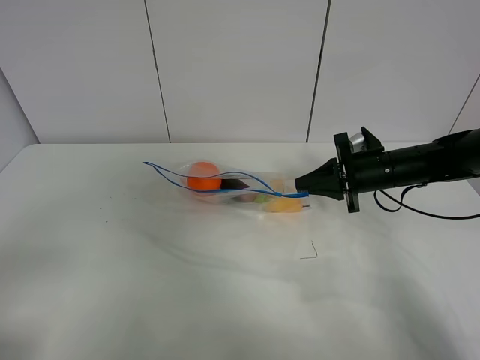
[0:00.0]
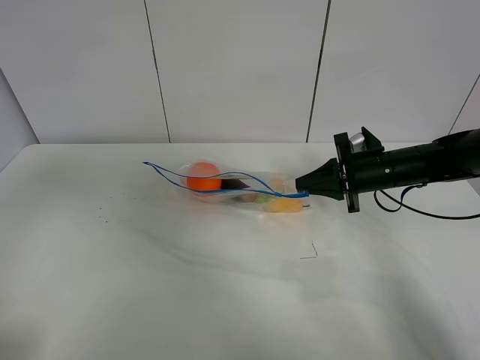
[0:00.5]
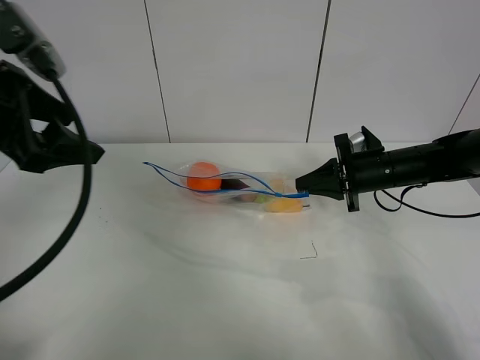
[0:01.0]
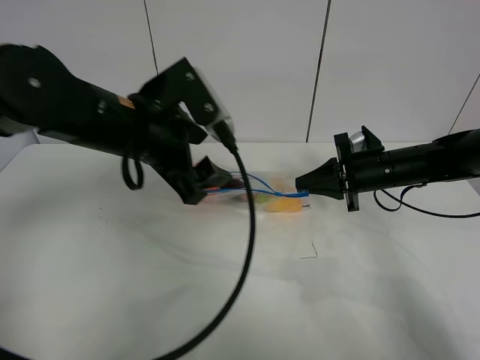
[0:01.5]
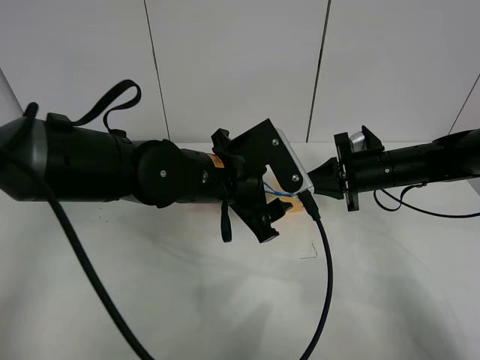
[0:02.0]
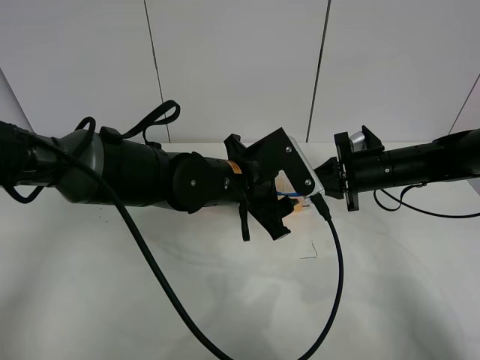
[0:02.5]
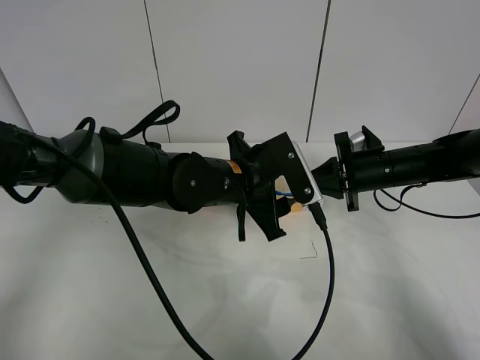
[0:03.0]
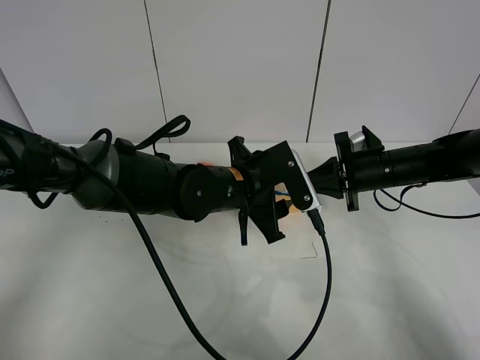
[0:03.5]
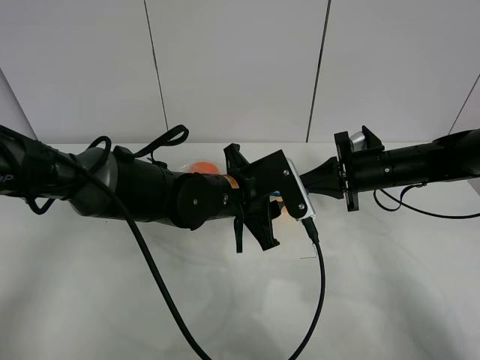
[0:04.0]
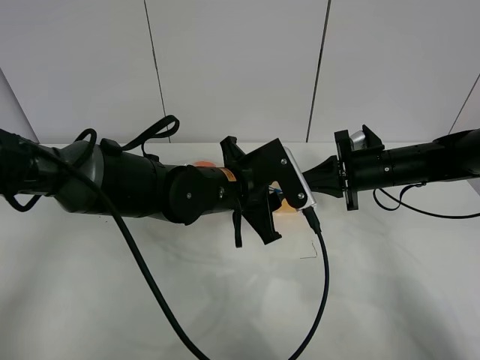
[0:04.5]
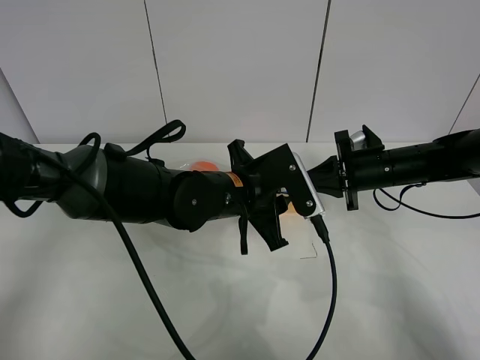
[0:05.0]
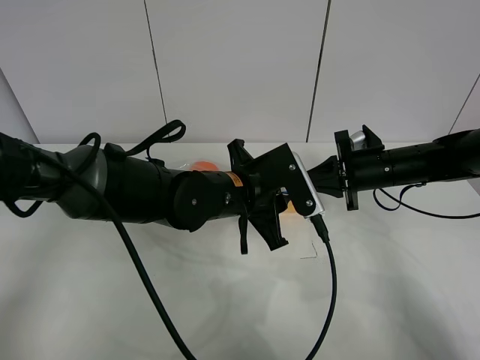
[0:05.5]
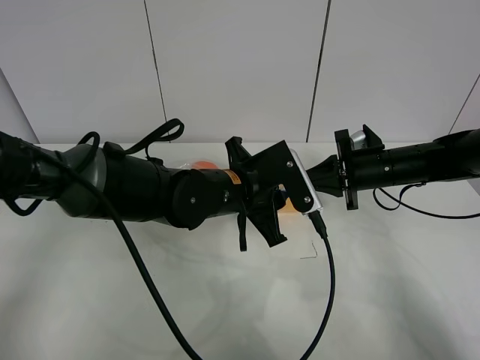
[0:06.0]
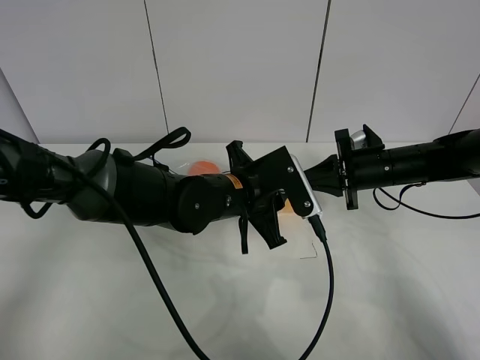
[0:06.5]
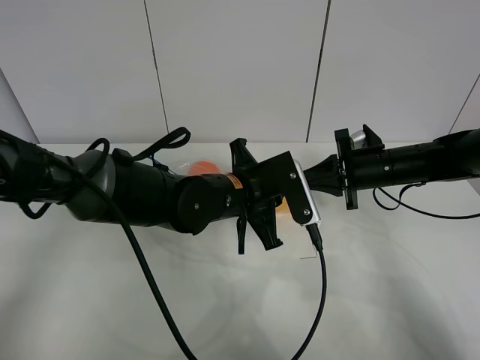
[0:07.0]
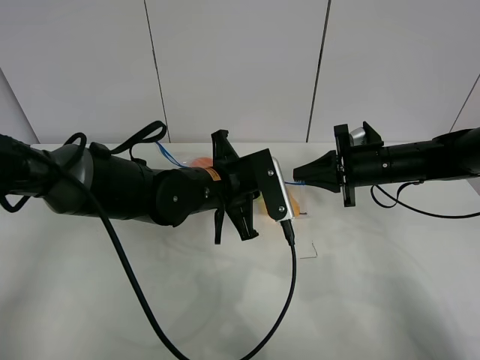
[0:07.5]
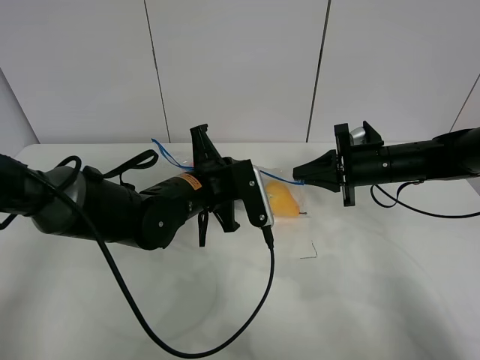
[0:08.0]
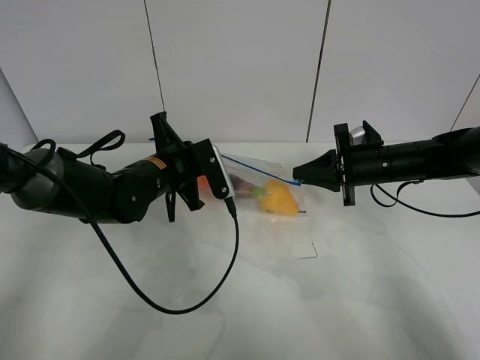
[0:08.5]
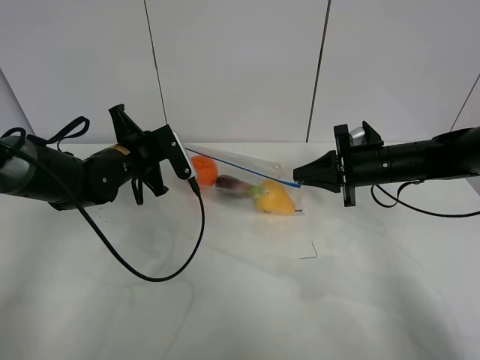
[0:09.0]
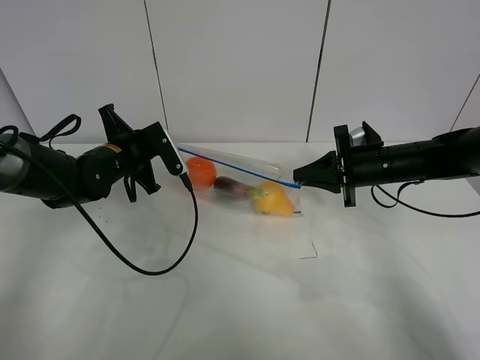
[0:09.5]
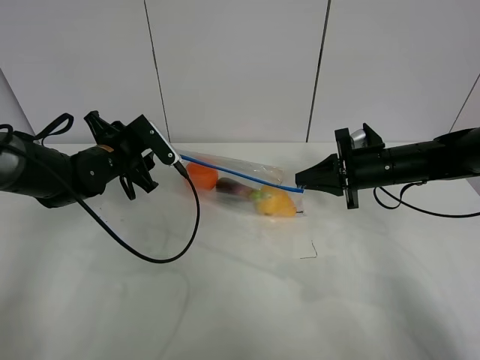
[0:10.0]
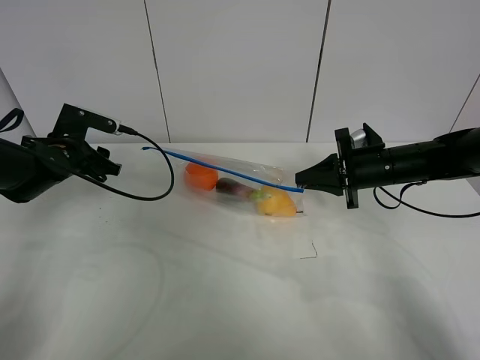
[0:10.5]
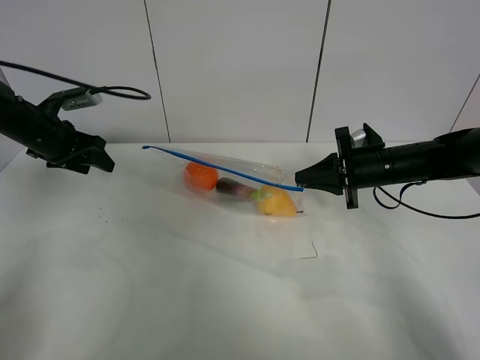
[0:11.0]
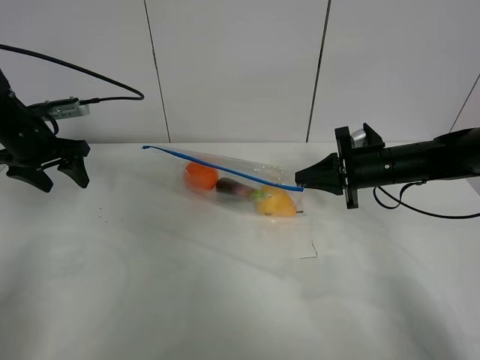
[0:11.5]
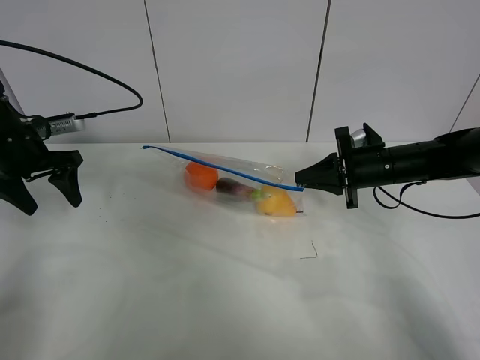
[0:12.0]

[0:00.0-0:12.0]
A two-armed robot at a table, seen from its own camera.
Step, 0:00.0 to 0:10.0: Pull the fruit bag with left gripper.
0:00.0 to 0:02.0: The left gripper shifts about 40 cm to the right and forward.
0:02.0 to 0:04.0: The left gripper closes.
0:04.0 to 0:06.0: There are only small adjustments of the grippers.
0:06.0 to 0:08.0: The left gripper travels to the left by some 5 cm, and closes.
0:08.0 to 0:10.0: The left gripper goes roughly 15 cm to the left and forward, and opens.
0:10.0 to 0:12.0: The left gripper shifts roughly 15 cm to the left and upward.

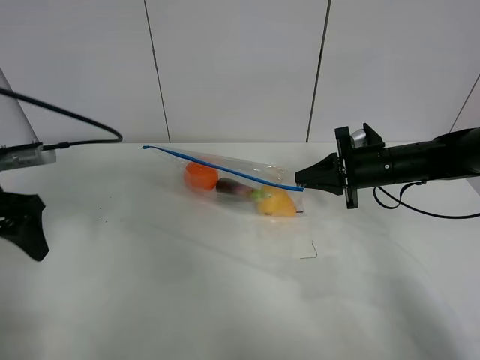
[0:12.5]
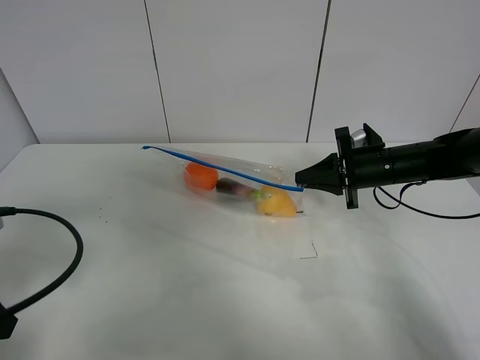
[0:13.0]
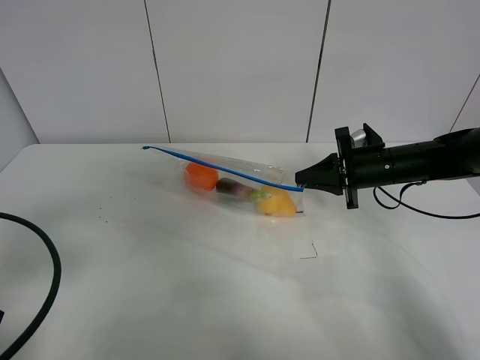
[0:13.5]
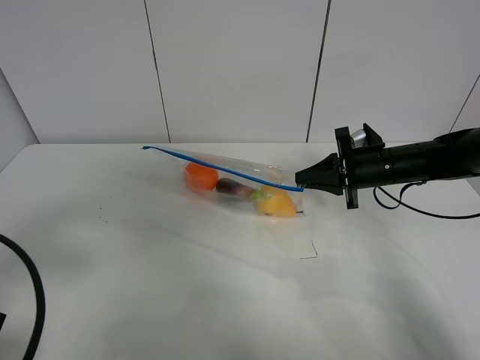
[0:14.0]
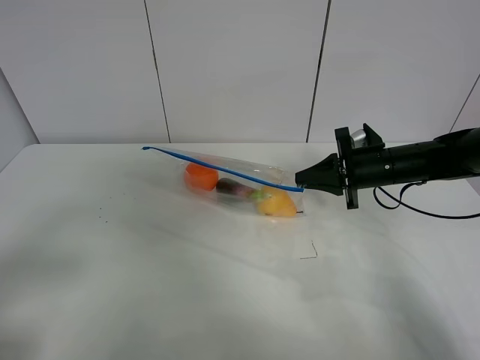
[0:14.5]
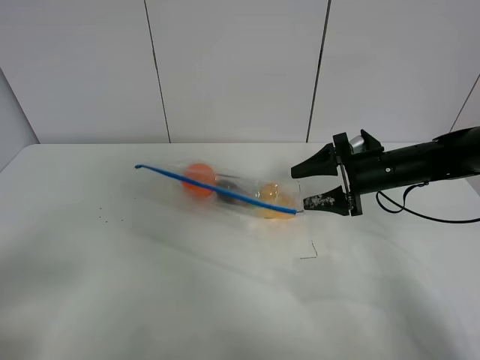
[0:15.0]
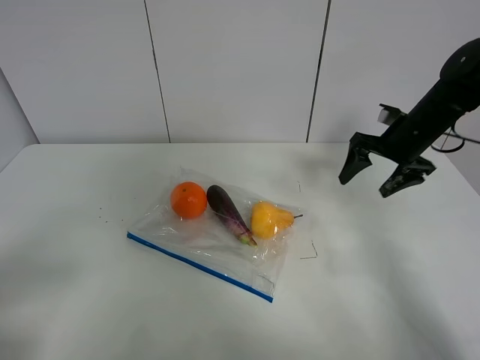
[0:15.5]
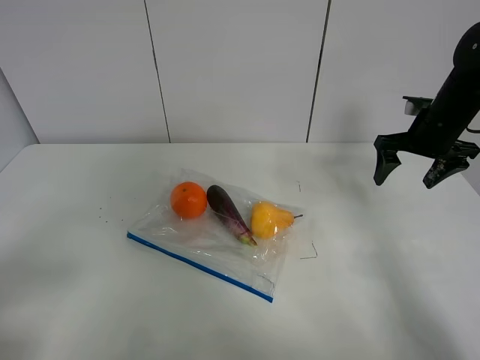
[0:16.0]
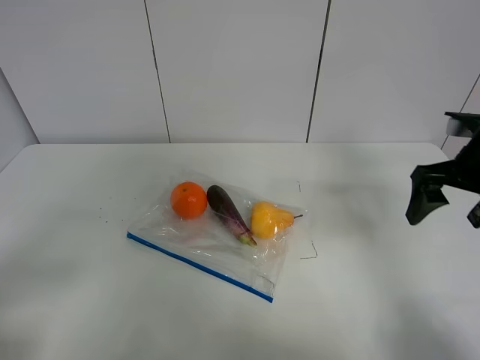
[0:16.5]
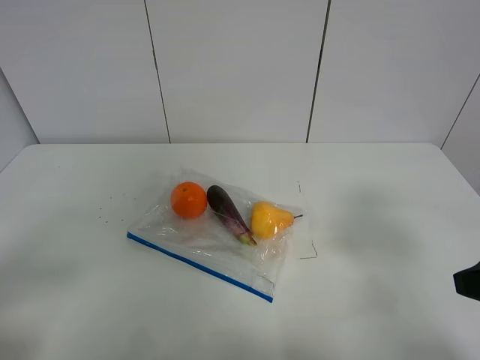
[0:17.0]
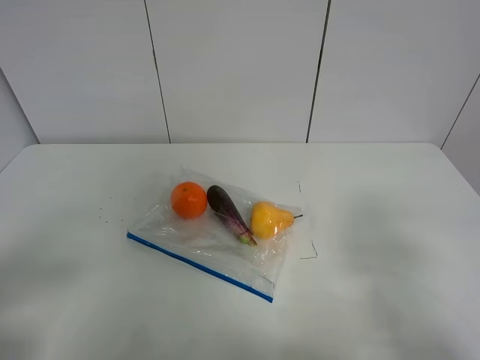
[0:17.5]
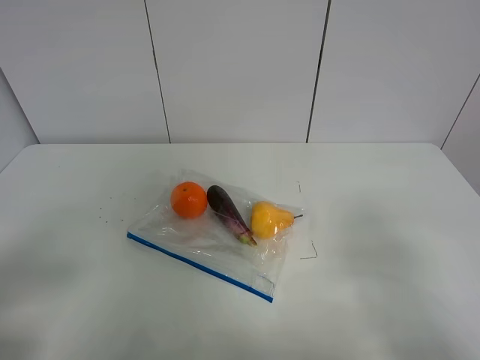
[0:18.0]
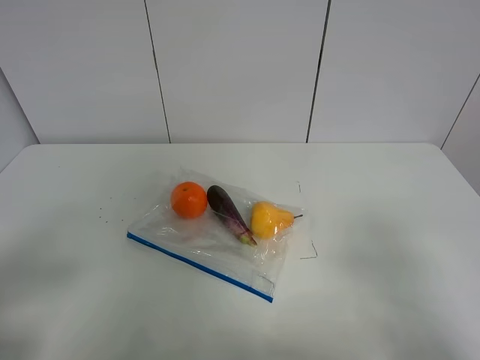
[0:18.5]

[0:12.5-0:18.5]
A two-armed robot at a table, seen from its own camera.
0:12.5 to 0:14.5: The left gripper travels backward by about 20 cm.
0:14.5 to 0:16.5: The right gripper goes about 15 cm upward, backward and to the right, and opens.
0:16.5 to 0:18.5: The right gripper heads backward, covering some 25 cm.

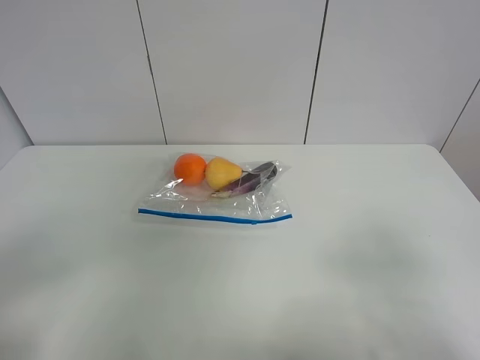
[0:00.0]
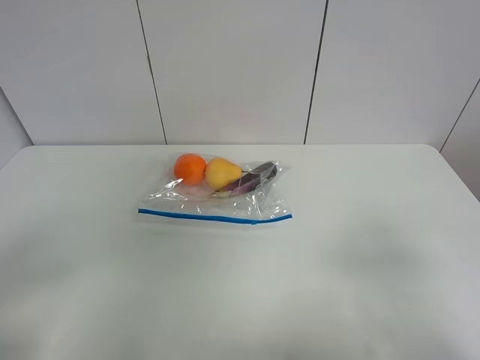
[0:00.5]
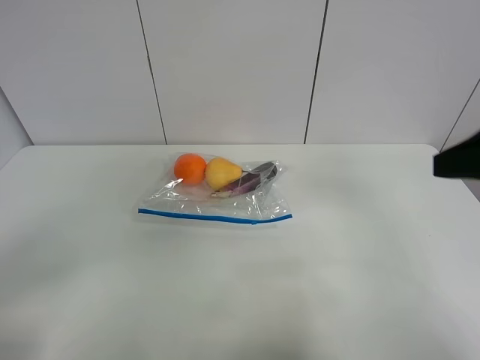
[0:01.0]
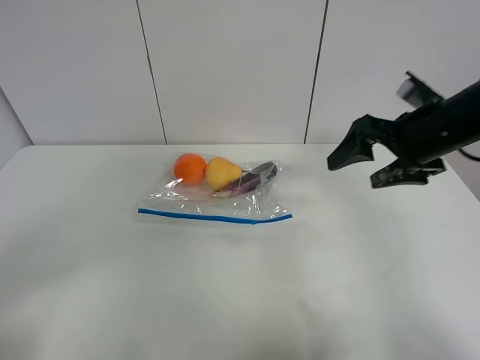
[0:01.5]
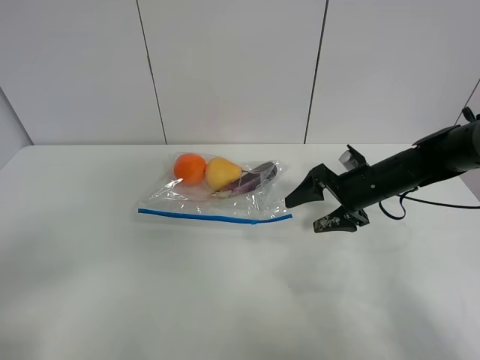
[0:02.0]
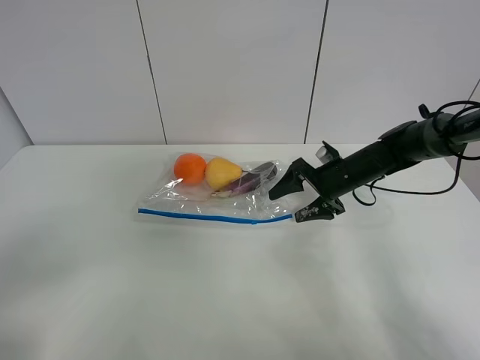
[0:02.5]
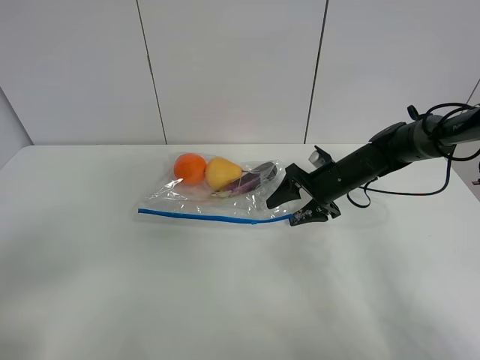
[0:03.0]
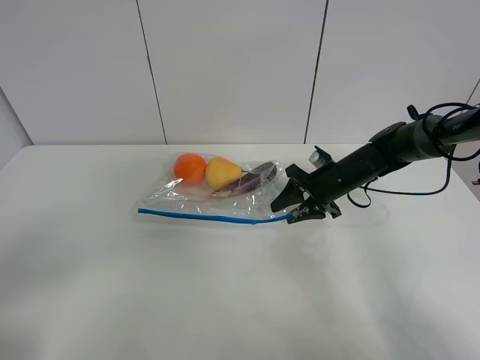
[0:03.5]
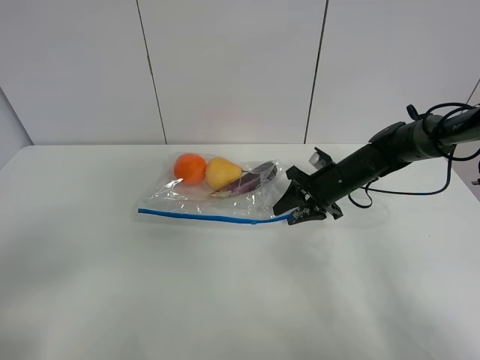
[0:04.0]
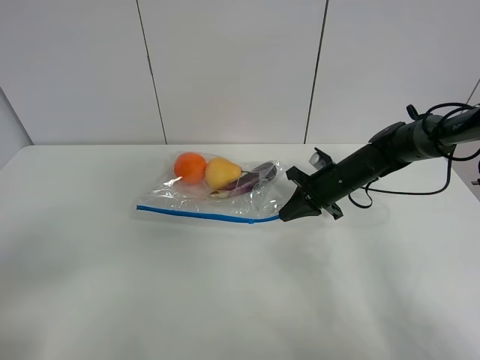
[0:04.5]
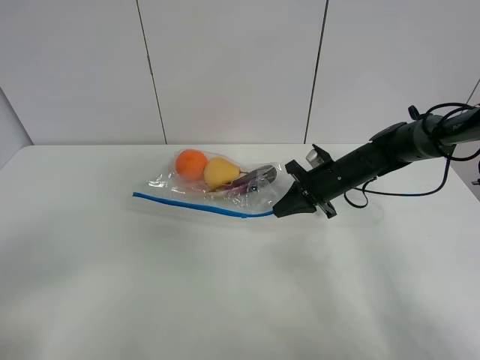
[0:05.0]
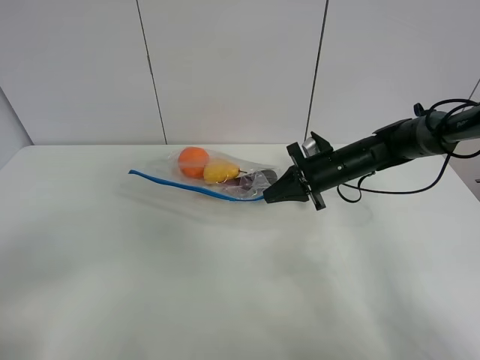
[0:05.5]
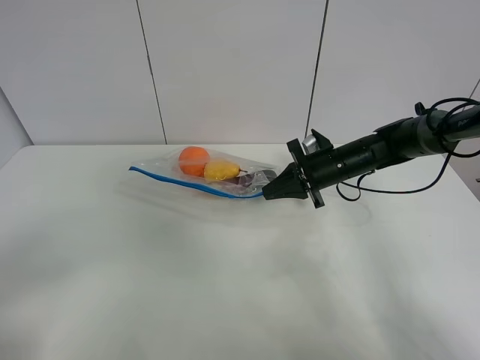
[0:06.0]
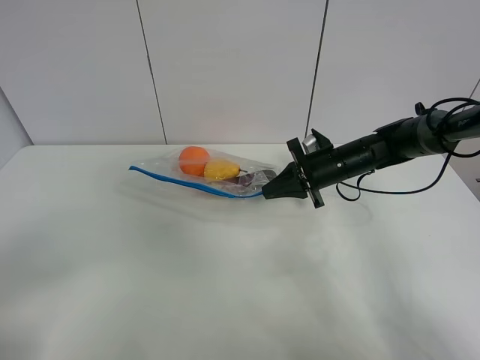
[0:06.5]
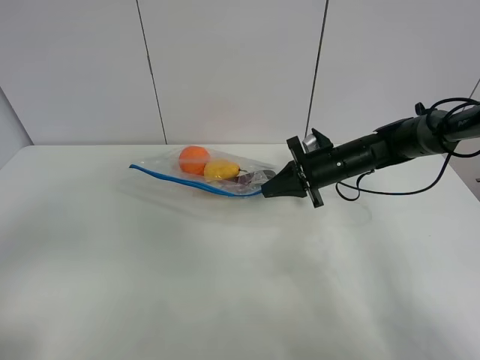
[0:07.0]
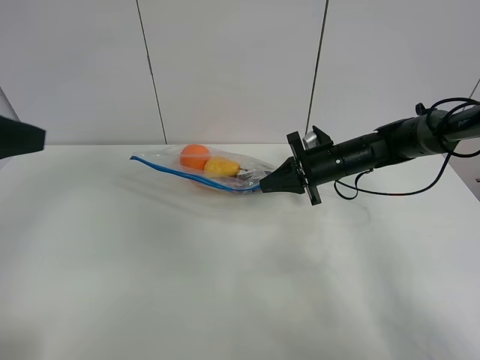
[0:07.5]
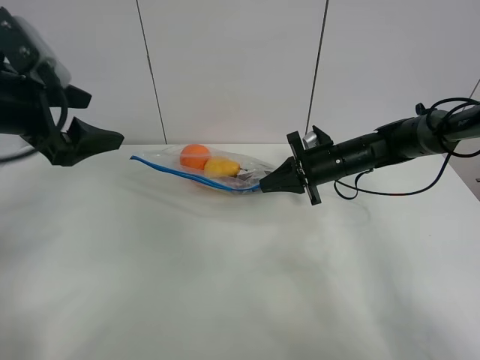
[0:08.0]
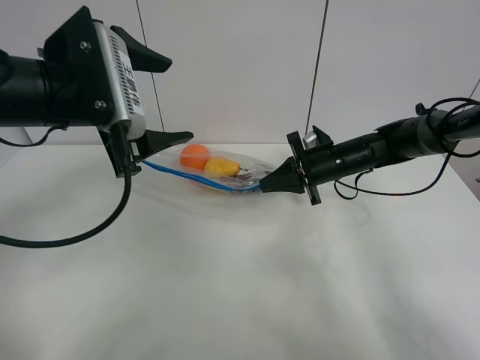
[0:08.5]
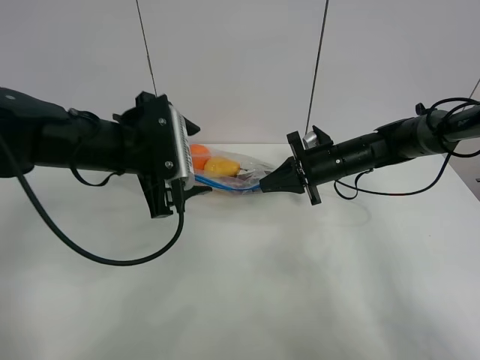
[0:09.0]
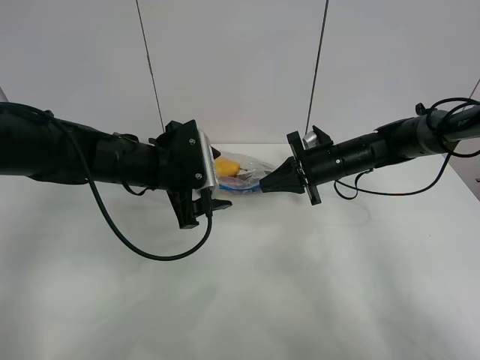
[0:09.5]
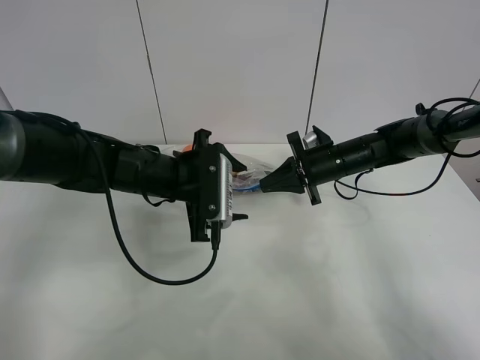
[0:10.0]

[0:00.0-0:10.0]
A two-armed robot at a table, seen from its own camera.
Step, 0:00.0 to 0:04.0: Grasp the fruit bag with right gripper.
Step, 0:04.5 to 0:06.0: Lift the fruit bag with your right gripper.
0:00.0 to 0:02.0: The right gripper moves forward and downward, approximately 40 cm.
0:02.0 to 0:04.0: The right gripper changes place by some 5 cm, and closes up.
0:04.0 to 0:06.0: The right gripper closes.
0:06.0 to 0:08.0: The left gripper shifts approximately 30 cm forward.
0:08.0 to 0:10.0: The left gripper goes some 20 cm to the right and downward.
